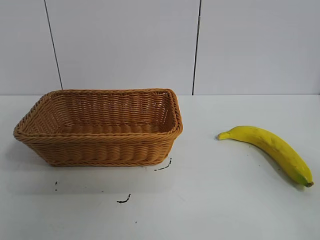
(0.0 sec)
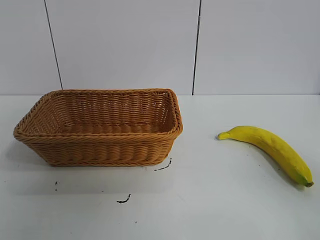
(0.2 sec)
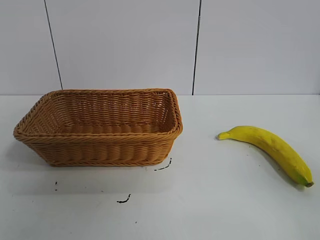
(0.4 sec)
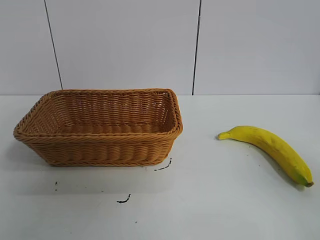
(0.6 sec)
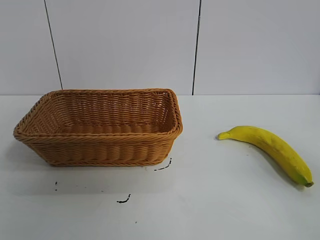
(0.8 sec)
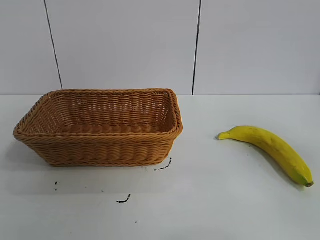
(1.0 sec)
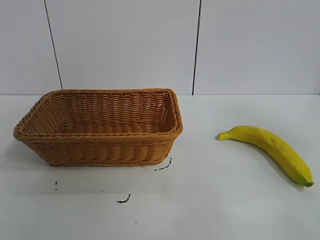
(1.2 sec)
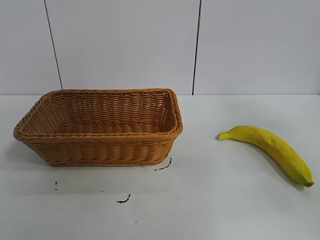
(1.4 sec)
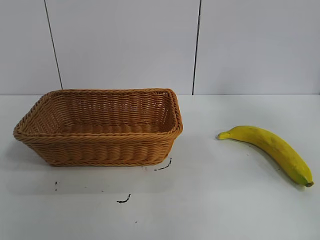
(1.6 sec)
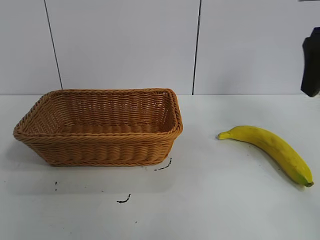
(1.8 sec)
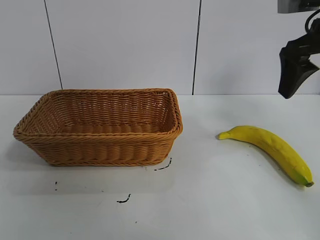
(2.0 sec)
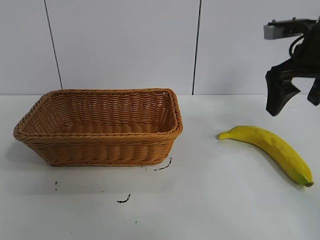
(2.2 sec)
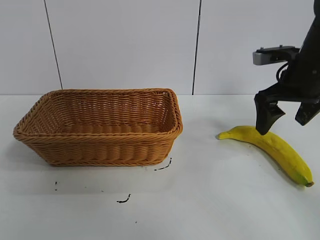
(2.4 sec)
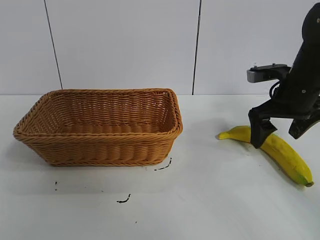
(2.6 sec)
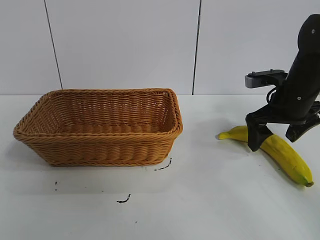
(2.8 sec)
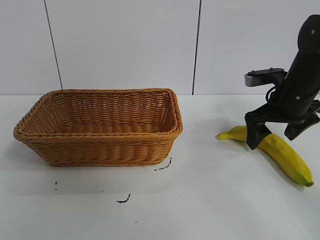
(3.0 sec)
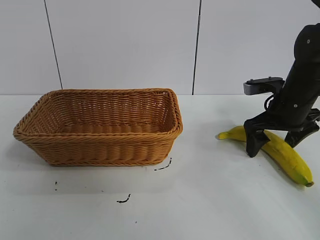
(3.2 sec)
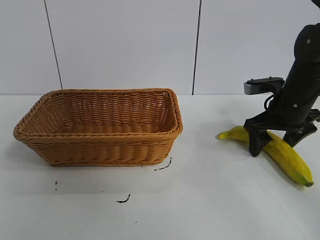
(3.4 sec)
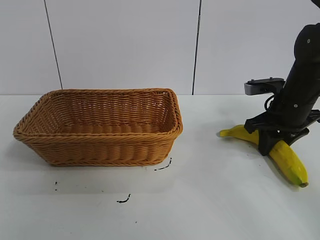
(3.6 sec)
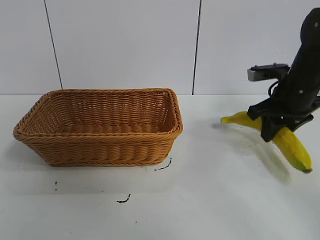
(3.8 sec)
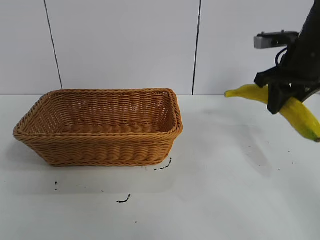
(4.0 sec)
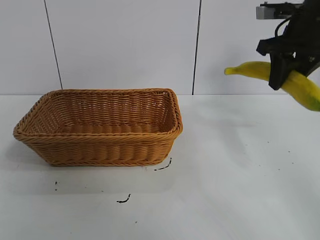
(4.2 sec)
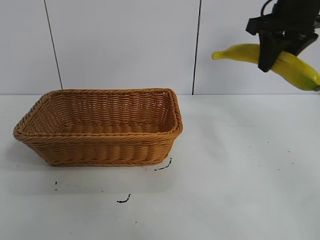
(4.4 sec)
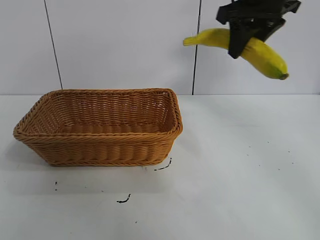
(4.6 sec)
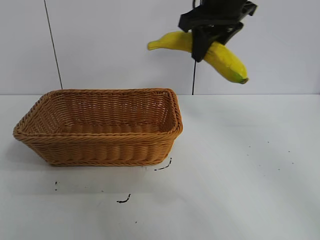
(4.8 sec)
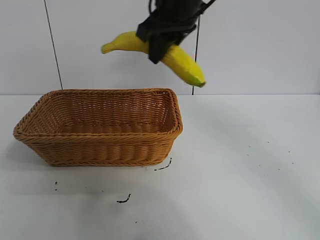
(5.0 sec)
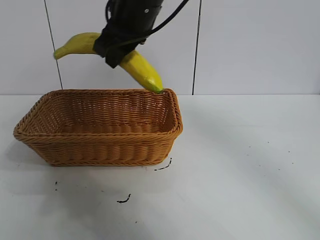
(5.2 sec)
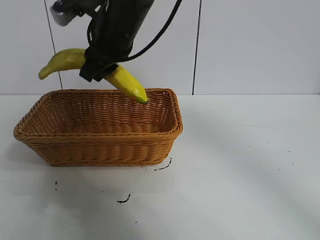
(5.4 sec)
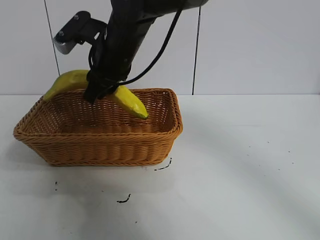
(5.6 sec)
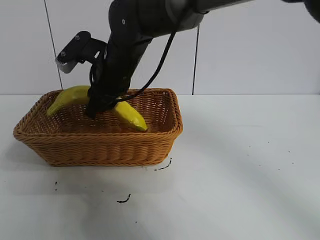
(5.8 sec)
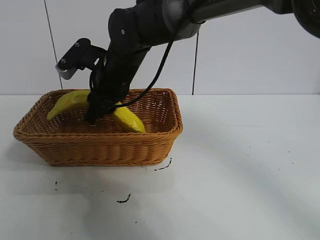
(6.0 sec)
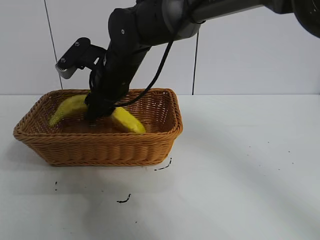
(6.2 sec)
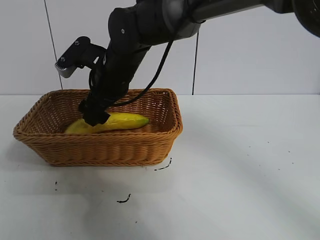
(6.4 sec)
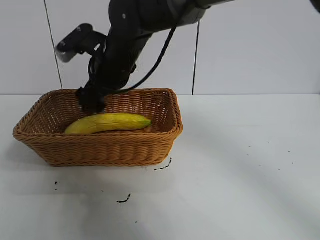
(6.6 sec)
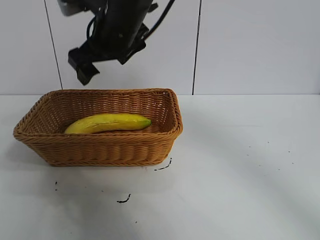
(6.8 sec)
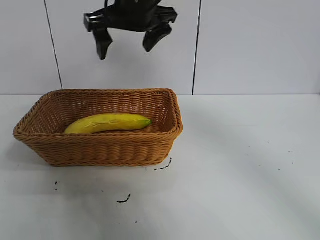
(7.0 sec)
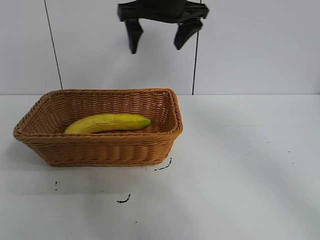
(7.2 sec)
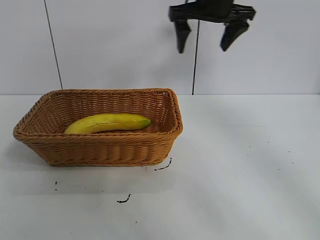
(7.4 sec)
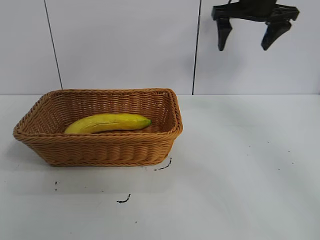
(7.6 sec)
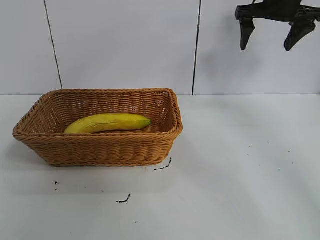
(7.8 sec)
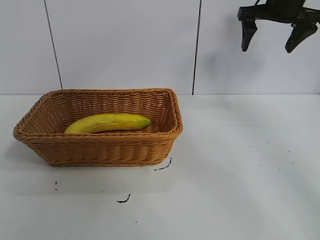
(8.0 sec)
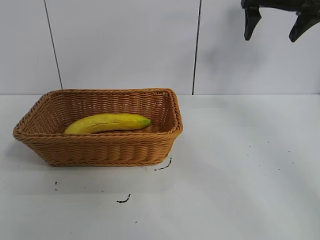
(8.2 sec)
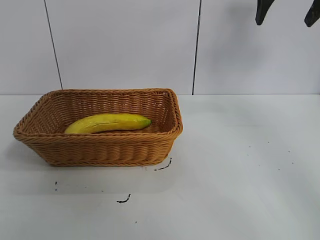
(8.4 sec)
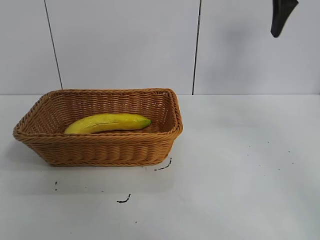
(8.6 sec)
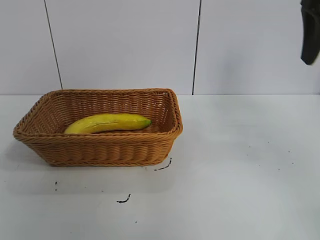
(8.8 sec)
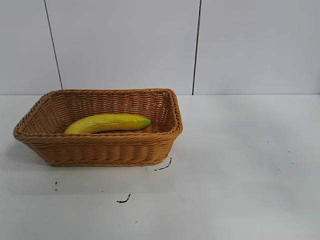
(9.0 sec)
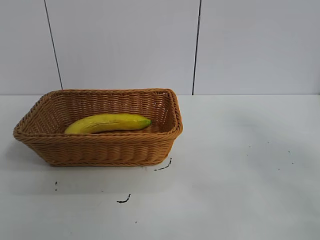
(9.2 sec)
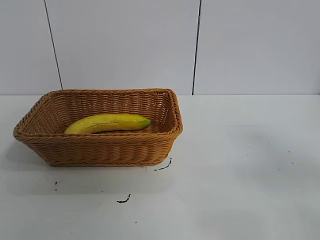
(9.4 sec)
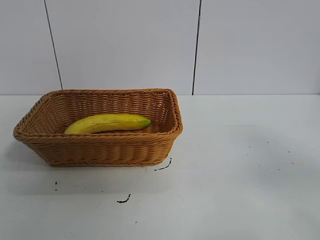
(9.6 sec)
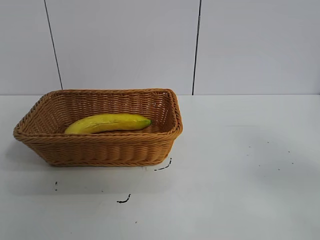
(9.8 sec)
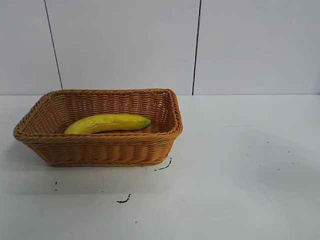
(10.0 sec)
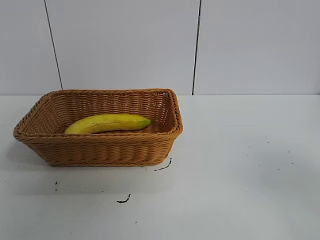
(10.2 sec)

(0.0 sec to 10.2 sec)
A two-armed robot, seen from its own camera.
Task of the whole recording: pick up the banana and put it into the basket.
Step, 0.8 sec - 3.4 sec: Grasp the banana with right gripper.
Step, 3.6 sec - 6.6 sec: Place the banana in the basket with right gripper.
